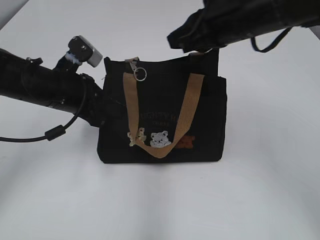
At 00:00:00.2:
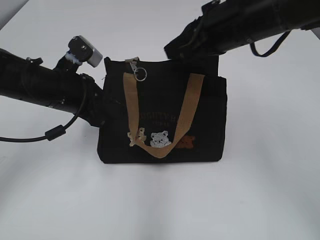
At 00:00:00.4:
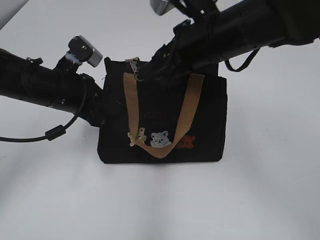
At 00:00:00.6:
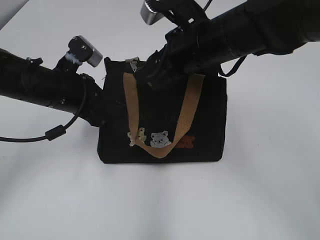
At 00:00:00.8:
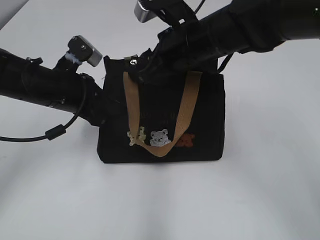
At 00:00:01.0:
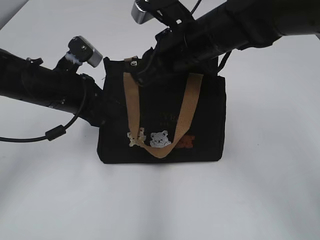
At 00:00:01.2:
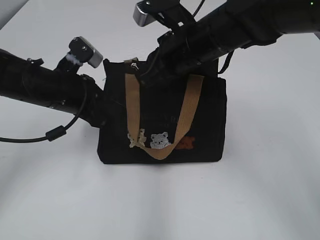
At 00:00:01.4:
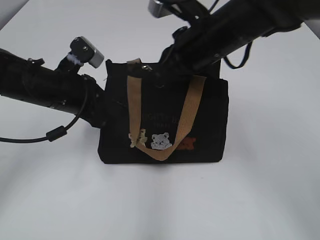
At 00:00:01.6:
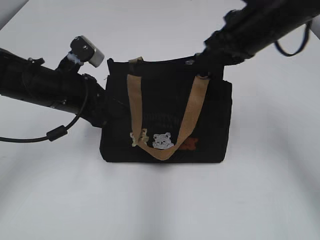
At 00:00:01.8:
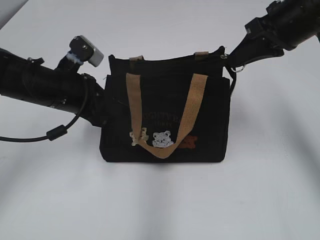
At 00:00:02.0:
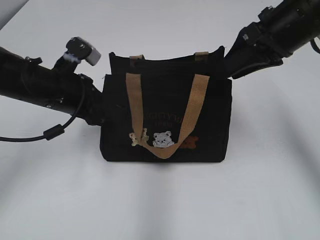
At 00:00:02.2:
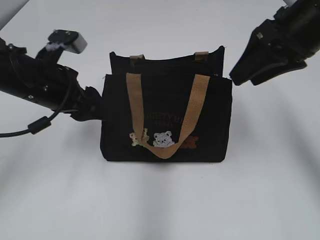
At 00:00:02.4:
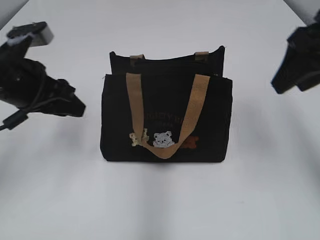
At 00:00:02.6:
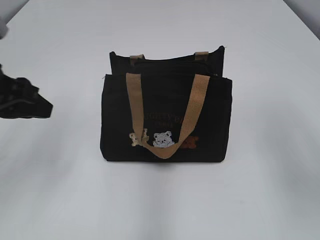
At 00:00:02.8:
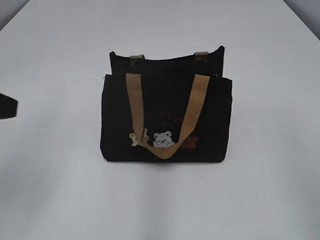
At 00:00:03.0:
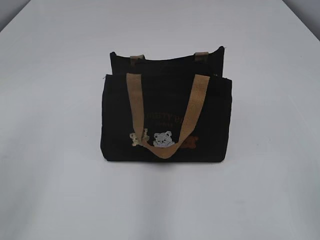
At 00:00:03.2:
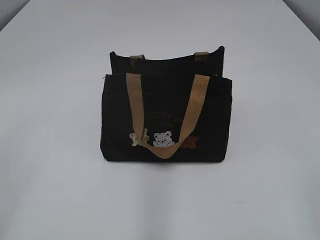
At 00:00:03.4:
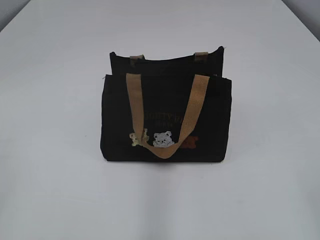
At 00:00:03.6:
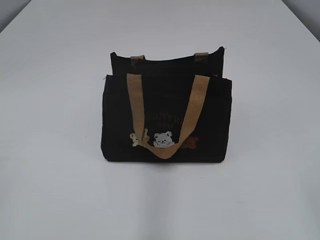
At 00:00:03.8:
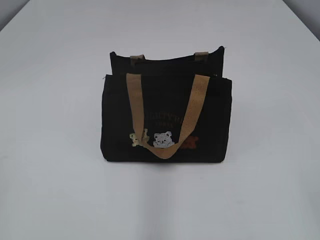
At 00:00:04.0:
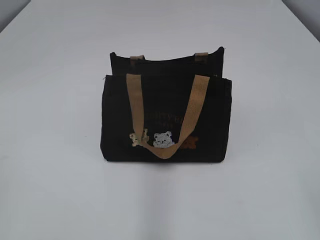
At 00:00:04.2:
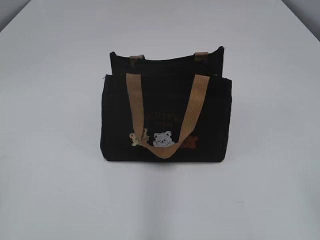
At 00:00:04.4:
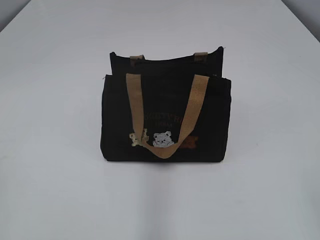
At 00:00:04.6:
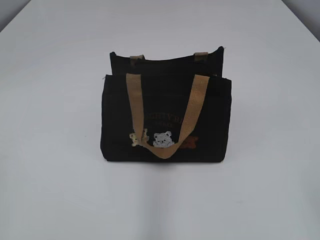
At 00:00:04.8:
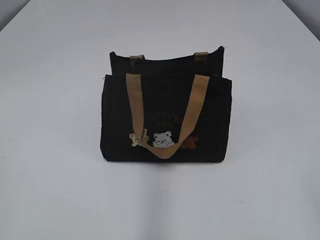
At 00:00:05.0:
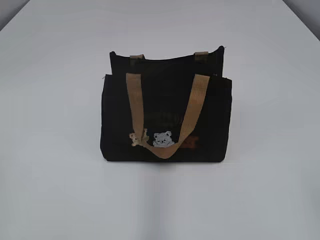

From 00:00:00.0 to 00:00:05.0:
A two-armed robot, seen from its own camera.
Step, from 00:00:00.0 to 00:00:02.2: Pull open the zipper with your right hand.
From 00:00:00.0 to 00:00:01.6: The right gripper reaches approximately 5 cm to the left, then returns, and opens and closes again.
From 00:00:01.6 to 00:00:03.4: The right gripper heads backward, covering about 35 cm, and opens its fingers; the left gripper goes roughly 35 cm backward, to the left and upward, and opens.
